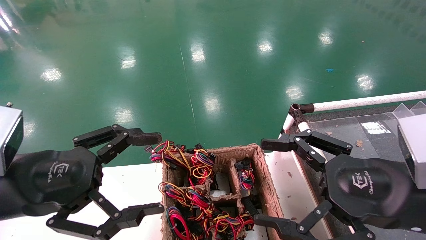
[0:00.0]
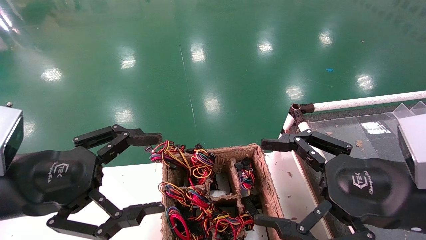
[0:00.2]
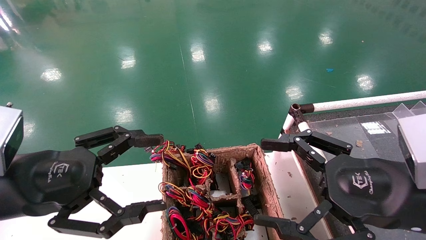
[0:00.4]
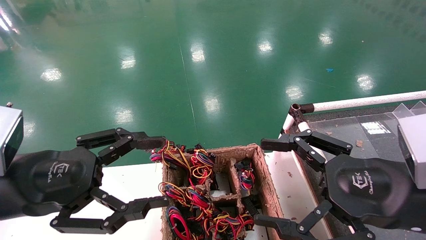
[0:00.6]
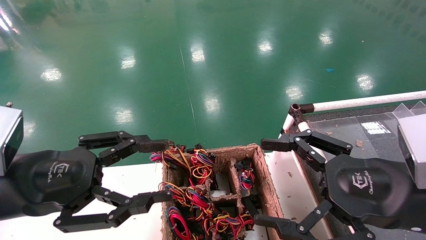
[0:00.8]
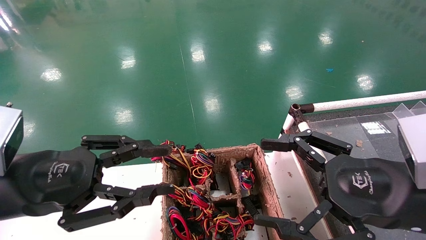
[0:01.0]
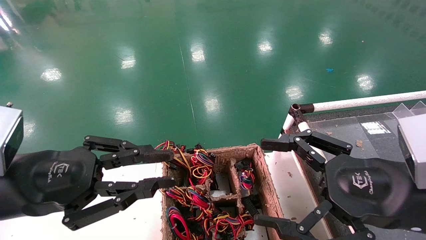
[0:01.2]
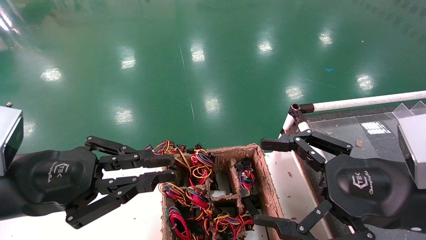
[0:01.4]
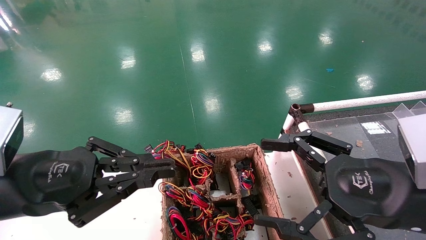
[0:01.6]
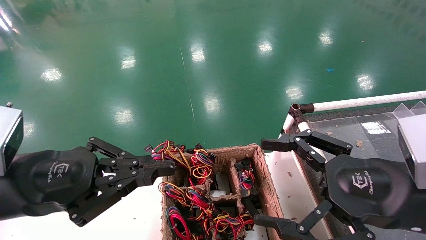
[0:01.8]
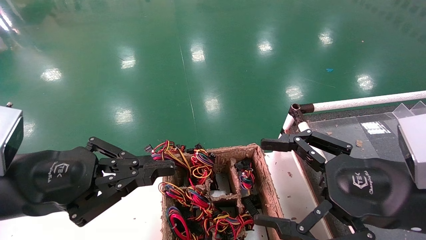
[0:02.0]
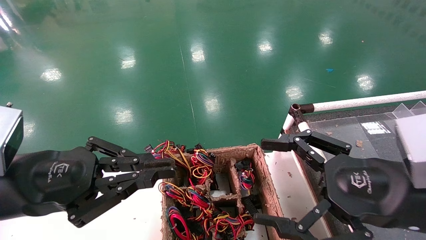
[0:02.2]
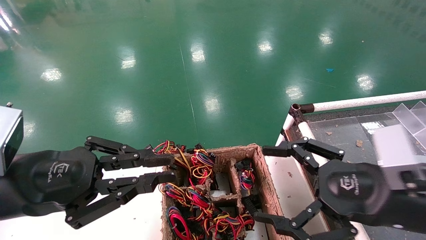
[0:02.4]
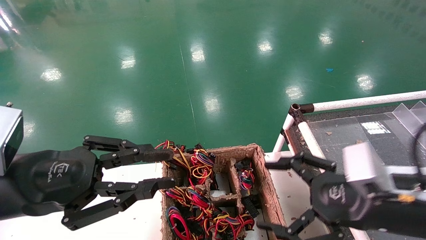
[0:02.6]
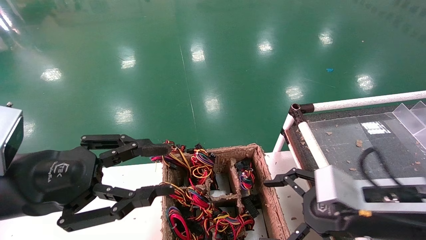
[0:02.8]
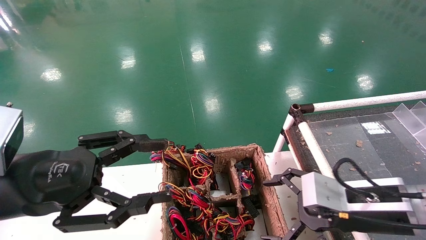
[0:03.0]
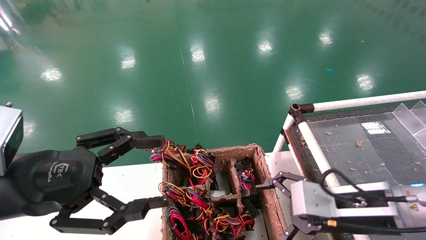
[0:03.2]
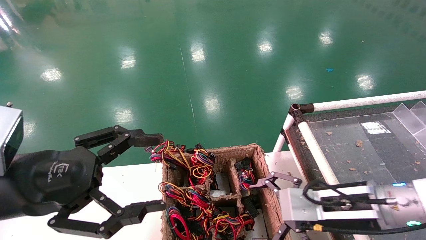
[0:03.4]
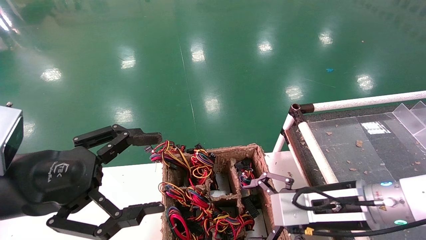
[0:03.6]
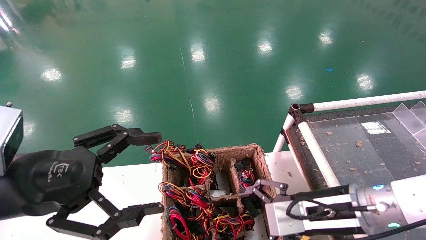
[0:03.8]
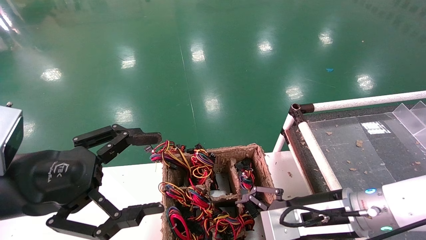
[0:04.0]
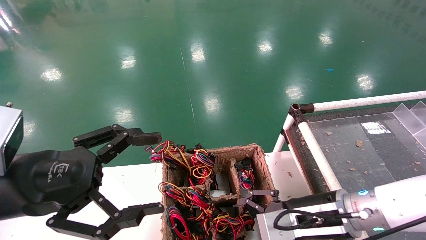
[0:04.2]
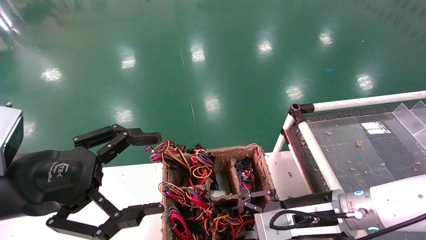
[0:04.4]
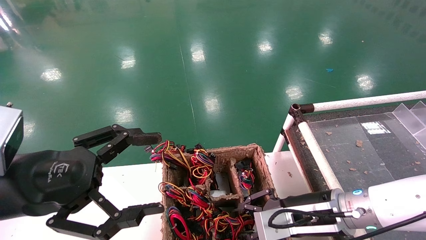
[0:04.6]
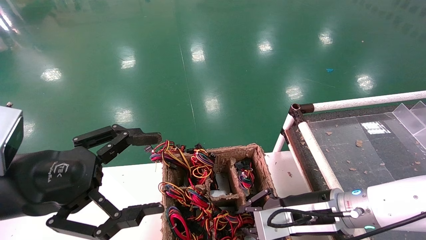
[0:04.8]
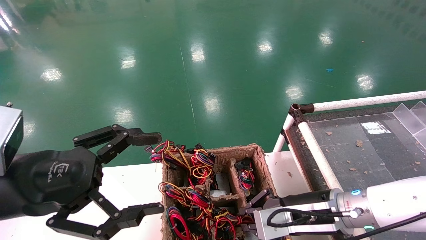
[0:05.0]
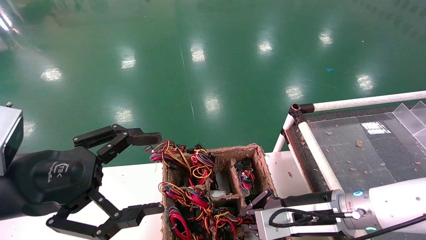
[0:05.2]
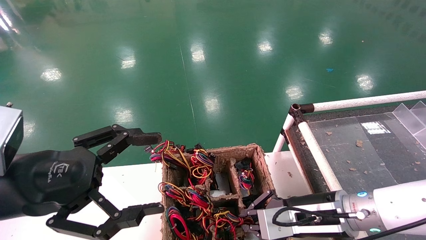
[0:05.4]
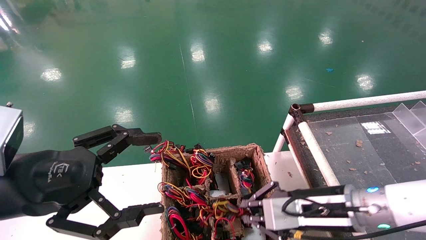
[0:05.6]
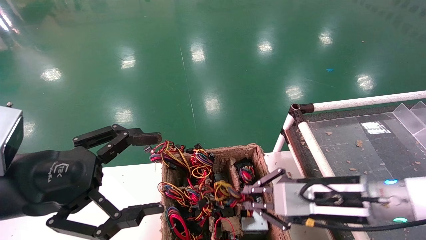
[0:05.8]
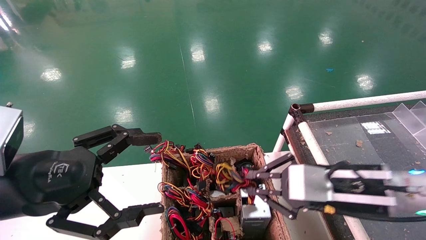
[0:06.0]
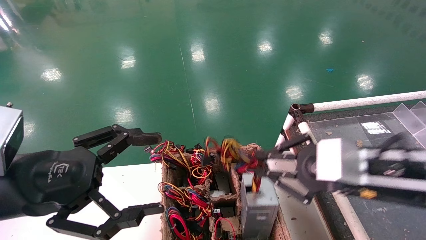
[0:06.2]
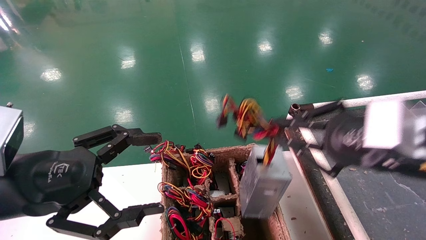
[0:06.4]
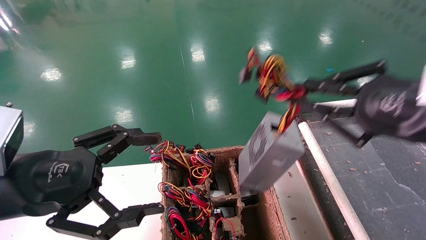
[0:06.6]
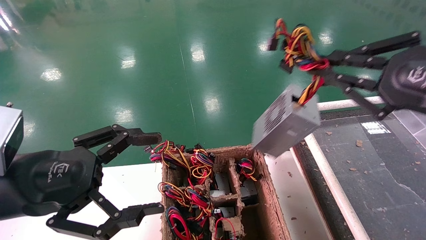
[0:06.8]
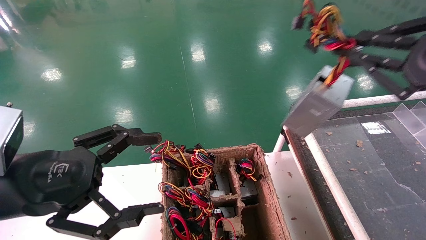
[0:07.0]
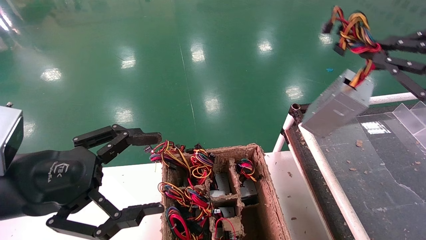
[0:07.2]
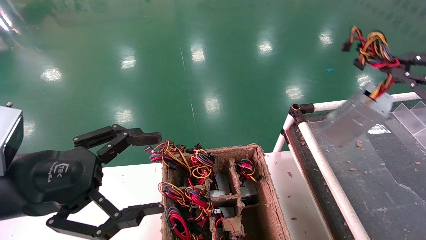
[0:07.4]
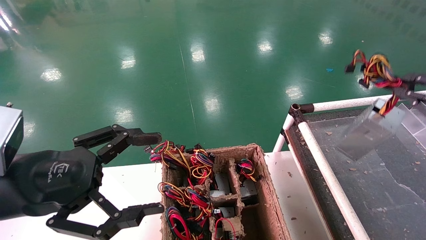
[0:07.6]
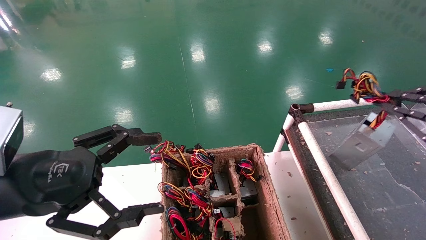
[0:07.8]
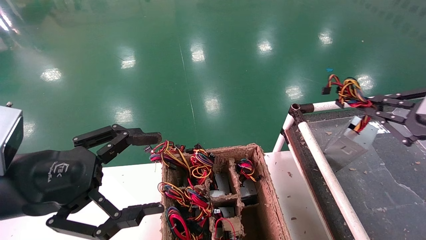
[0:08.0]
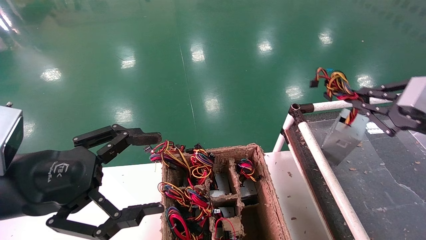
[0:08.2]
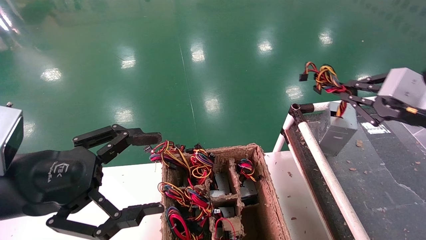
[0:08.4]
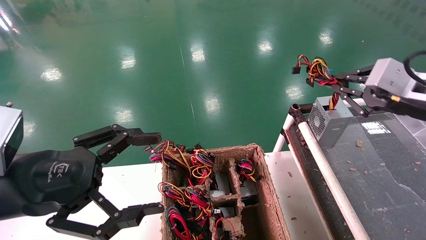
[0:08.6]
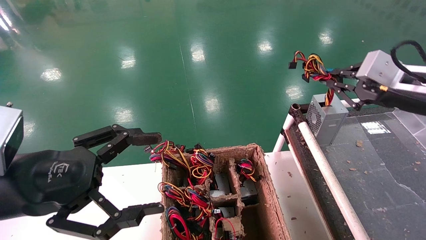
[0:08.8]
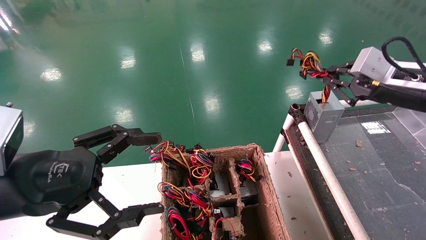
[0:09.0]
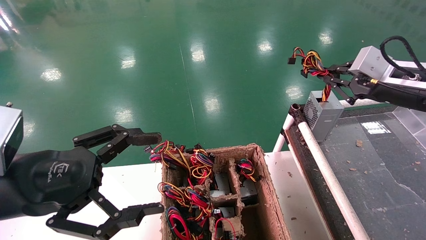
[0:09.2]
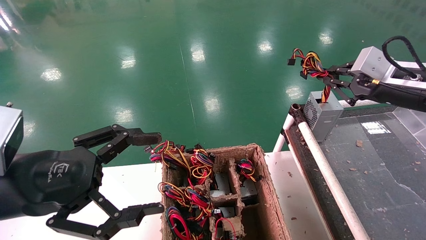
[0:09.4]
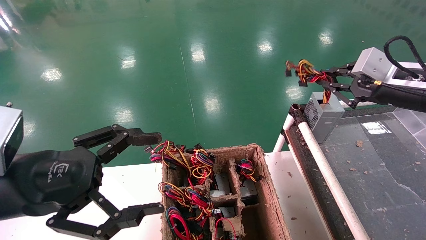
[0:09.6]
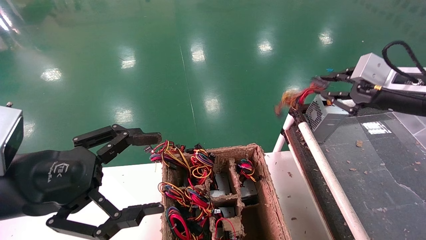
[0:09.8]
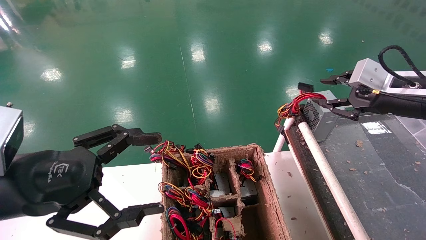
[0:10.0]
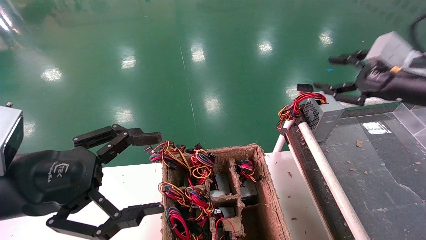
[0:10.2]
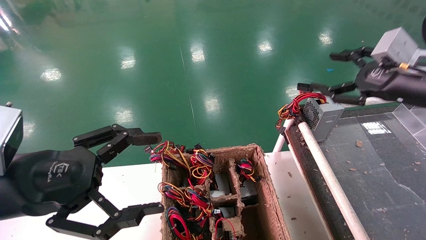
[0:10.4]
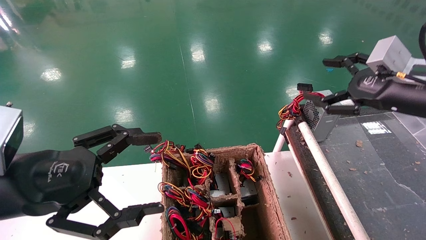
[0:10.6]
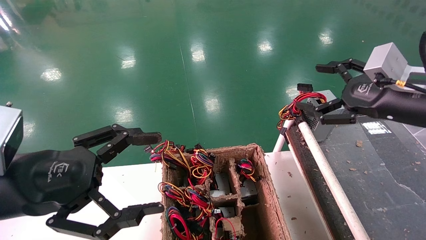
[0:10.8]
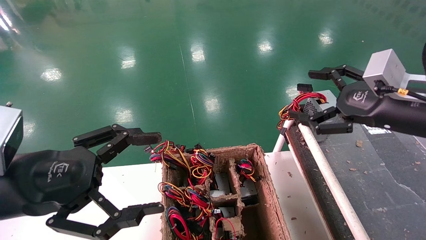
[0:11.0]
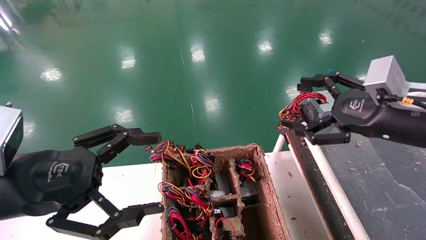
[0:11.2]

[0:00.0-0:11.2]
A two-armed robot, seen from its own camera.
Step, 0:02.6 to 0:05.0: Grab and lift the power supply from the large box.
Step, 0:05.2 to 0:09.6: Place the power supply on the operating table.
0:00.0 to 0:01.6: The left gripper closes.
0:01.6 to 0:03.2: The right gripper goes some 10 cm forward and downward; the left gripper opens up.
0:03.2 to 0:04.8: The right gripper shifts by about 5 cm, and closes.
0:04.8 to 0:06.4: The right gripper goes approximately 20 cm upward, to the right and backward.
0:06.4 to 0:08.0: The right gripper is displaced to the right by roughly 15 cm.
0:08.0 to 0:09.6: The right gripper heads forward, covering approximately 10 cm.
0:09.6 to 0:11.2: The right gripper is displaced backward by approximately 5 cm, and opens.

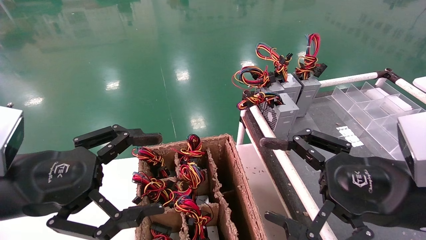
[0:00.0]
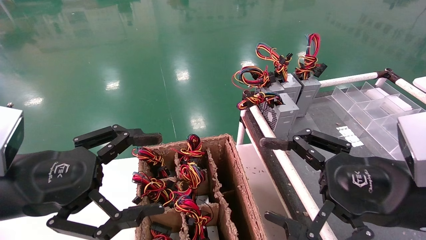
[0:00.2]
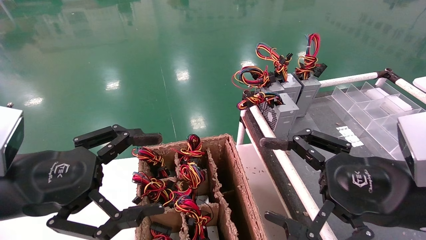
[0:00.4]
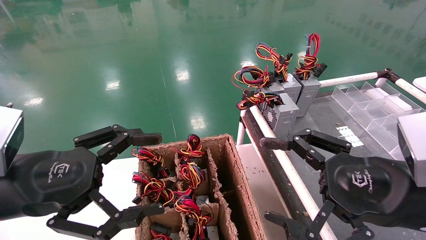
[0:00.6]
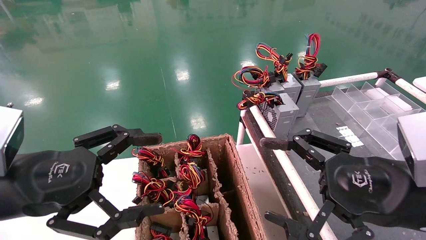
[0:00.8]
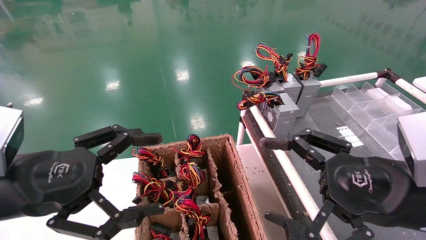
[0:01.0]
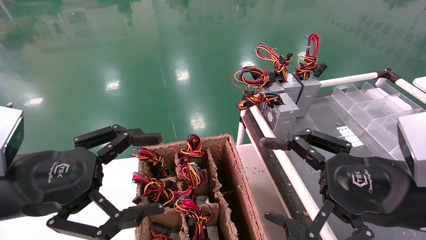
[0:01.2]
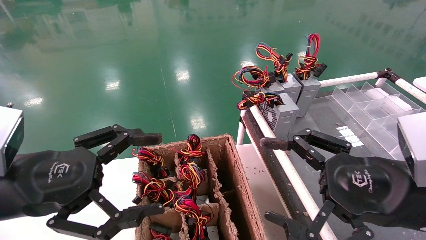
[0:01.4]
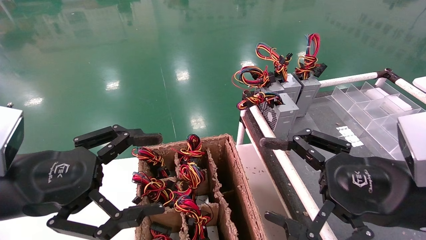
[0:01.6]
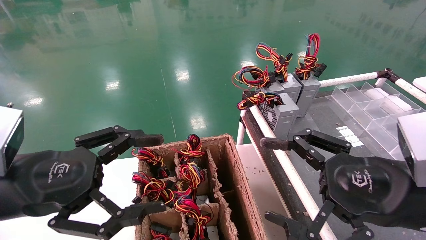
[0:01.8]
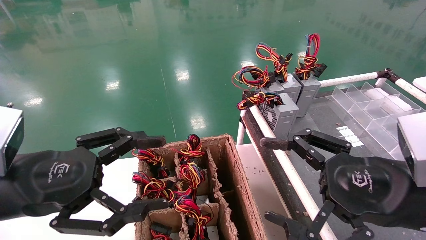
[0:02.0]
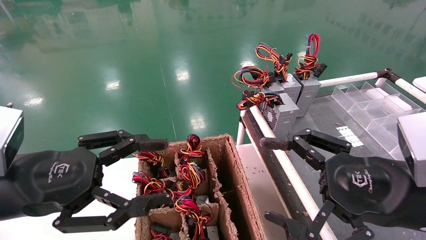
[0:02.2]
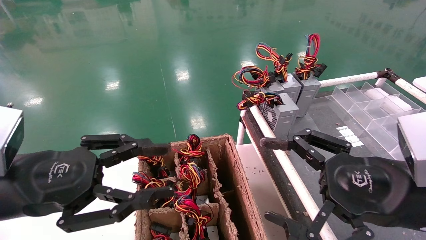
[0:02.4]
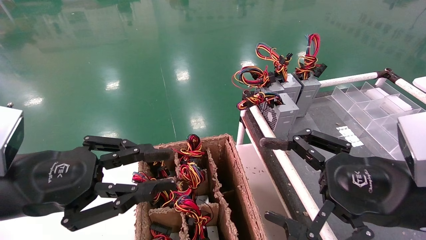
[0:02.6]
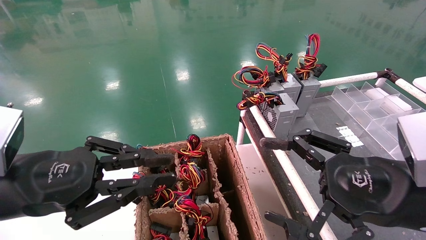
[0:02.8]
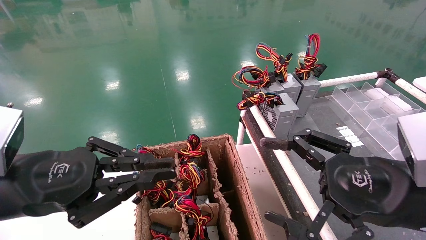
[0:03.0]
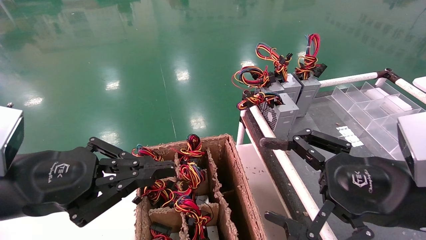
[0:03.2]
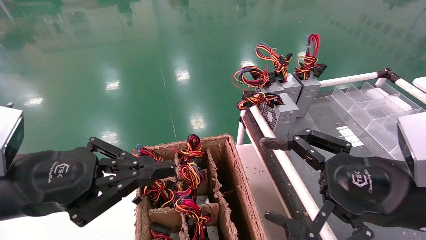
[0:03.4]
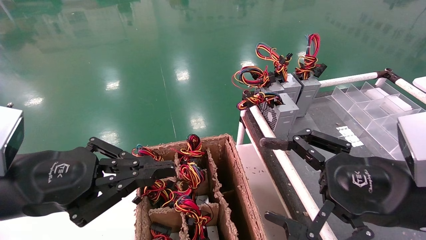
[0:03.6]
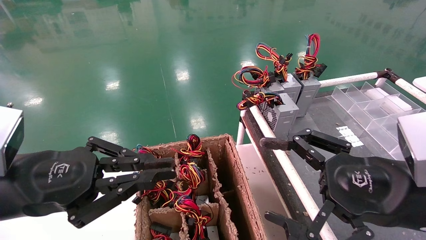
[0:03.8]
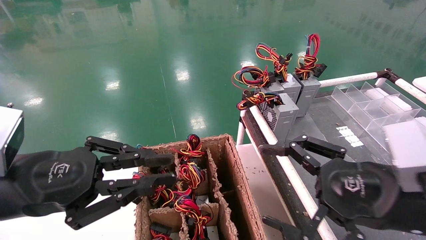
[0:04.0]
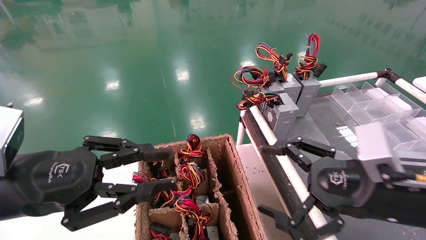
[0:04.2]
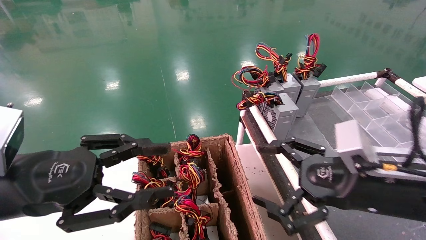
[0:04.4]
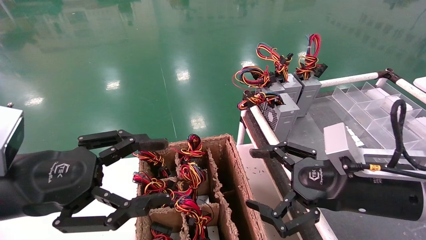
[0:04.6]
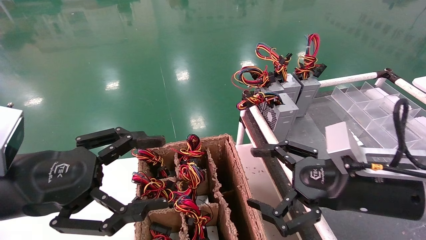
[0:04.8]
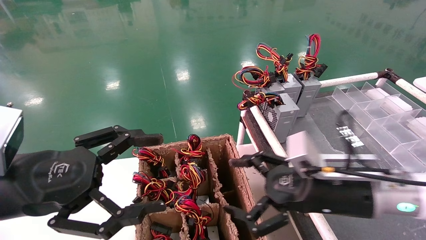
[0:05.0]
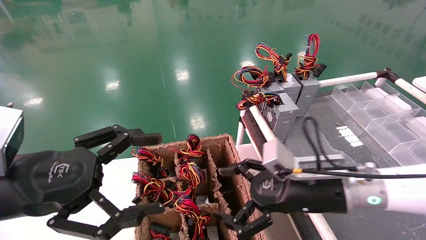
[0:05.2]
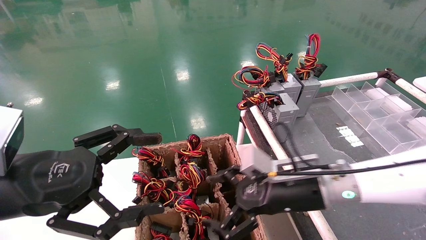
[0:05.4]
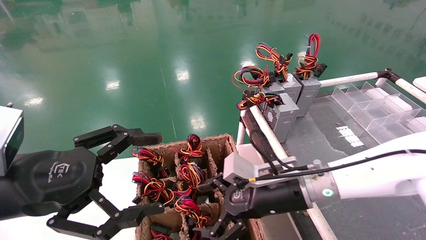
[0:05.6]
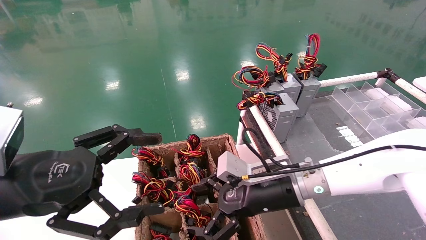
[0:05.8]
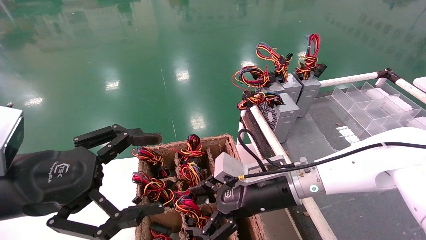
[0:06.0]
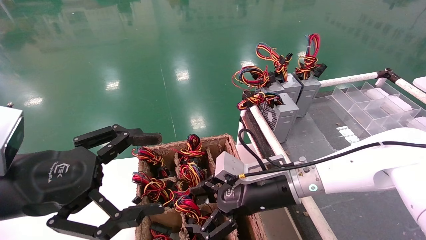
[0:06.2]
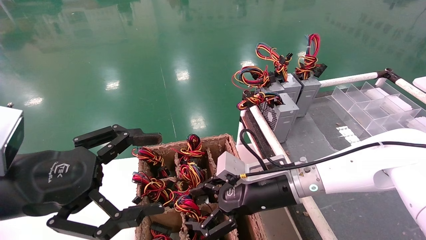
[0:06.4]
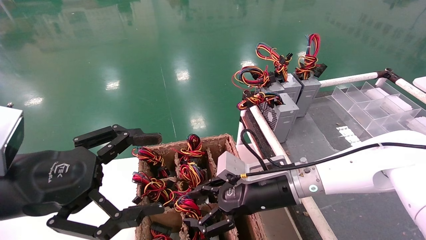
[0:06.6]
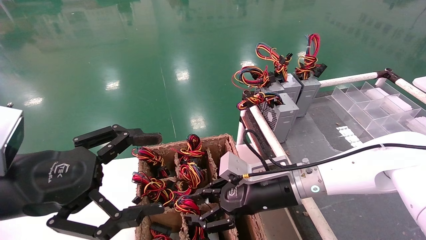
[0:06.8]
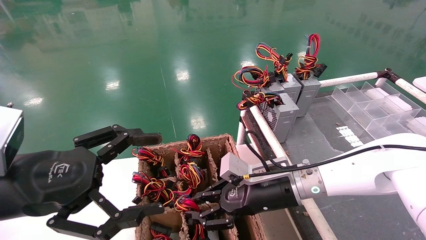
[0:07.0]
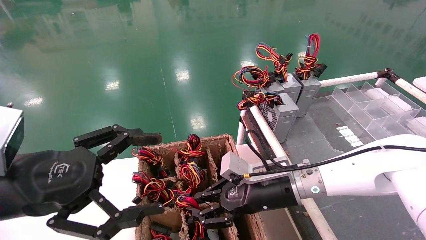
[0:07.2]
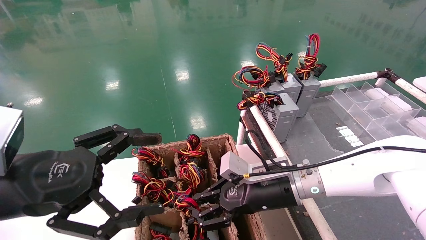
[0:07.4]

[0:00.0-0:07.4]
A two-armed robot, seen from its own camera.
0:00.0 to 0:01.4: Both grippers stay about where they are.
0:01.4 to 0:03.0: The left gripper closes its fingers.
0:03.0 to 0:04.4: The right gripper changes place by roughly 5 cm.
0:04.4 to 0:06.0: The left gripper opens, while the right gripper moves to the left, forward and downward, about 20 cm.
0:06.0 to 0:07.4: The right gripper closes.
